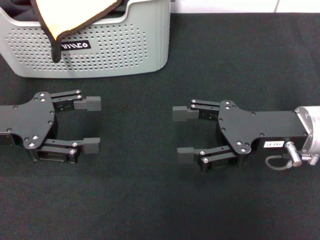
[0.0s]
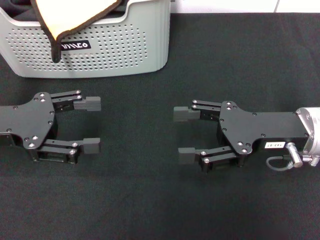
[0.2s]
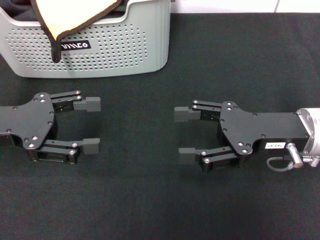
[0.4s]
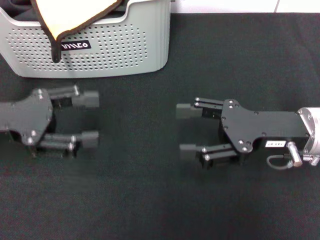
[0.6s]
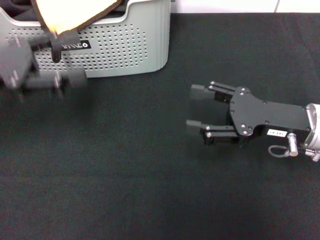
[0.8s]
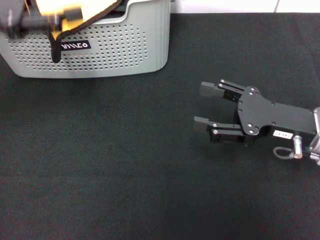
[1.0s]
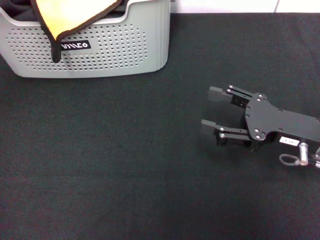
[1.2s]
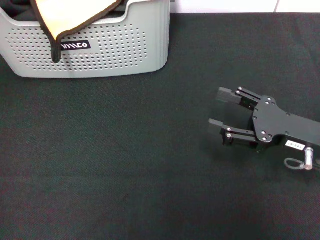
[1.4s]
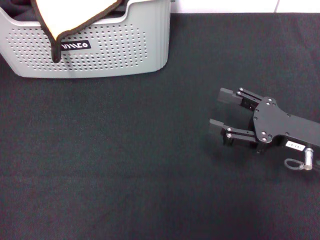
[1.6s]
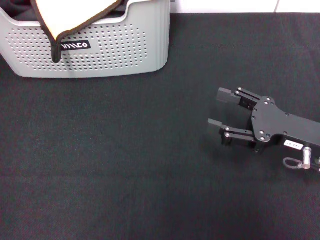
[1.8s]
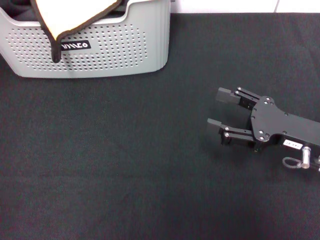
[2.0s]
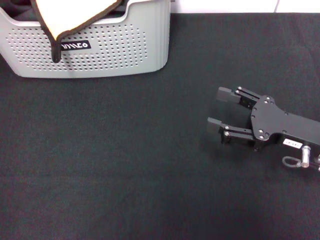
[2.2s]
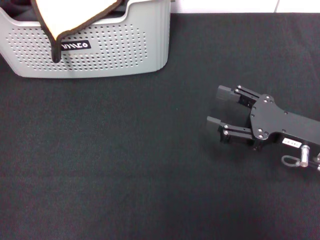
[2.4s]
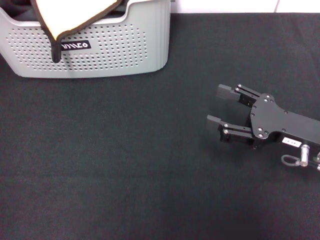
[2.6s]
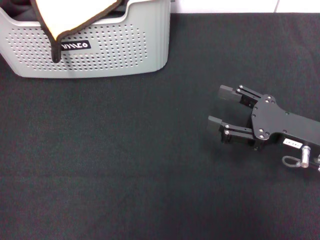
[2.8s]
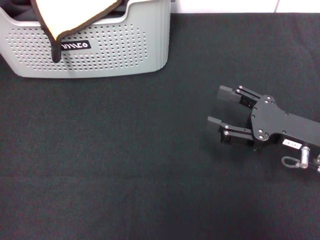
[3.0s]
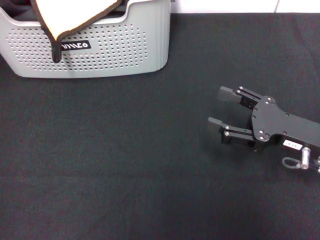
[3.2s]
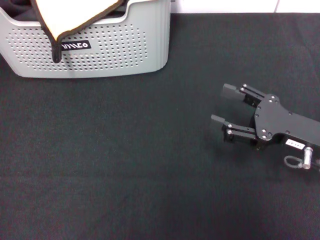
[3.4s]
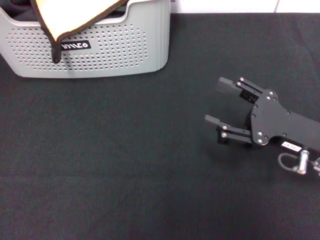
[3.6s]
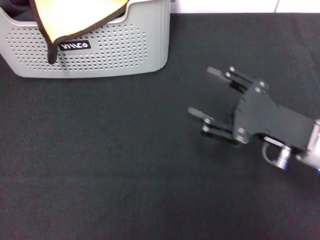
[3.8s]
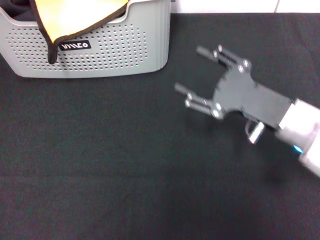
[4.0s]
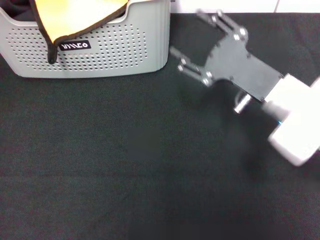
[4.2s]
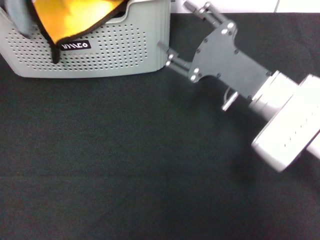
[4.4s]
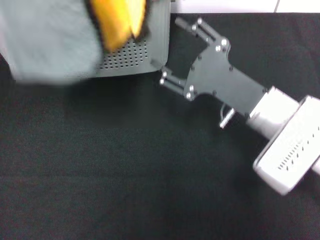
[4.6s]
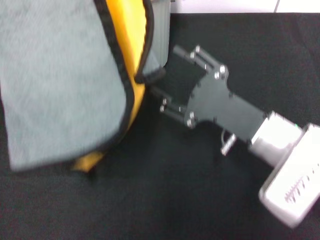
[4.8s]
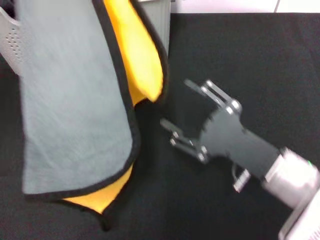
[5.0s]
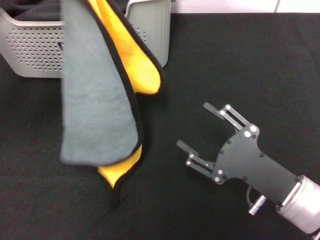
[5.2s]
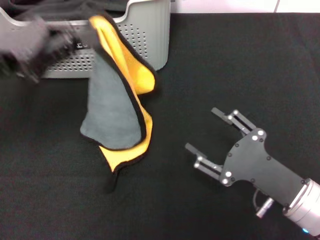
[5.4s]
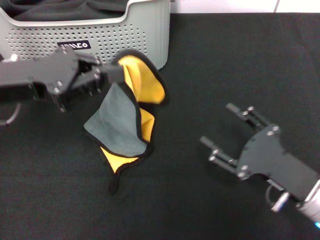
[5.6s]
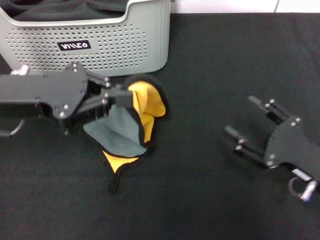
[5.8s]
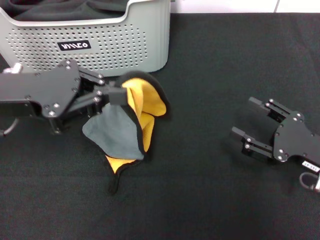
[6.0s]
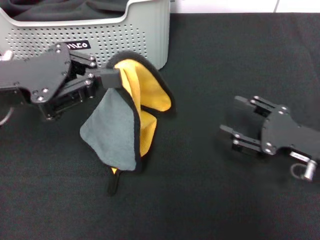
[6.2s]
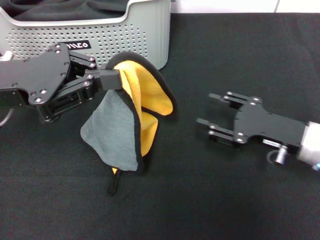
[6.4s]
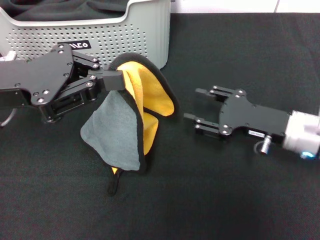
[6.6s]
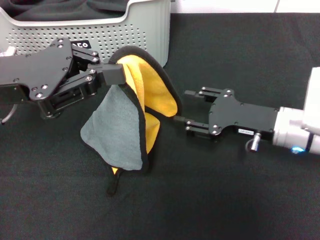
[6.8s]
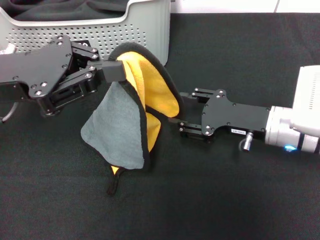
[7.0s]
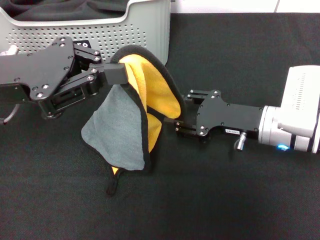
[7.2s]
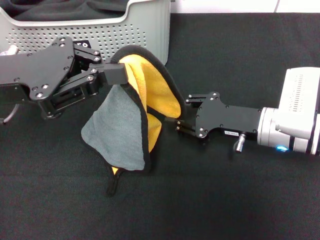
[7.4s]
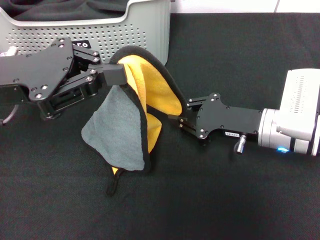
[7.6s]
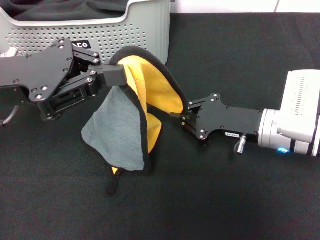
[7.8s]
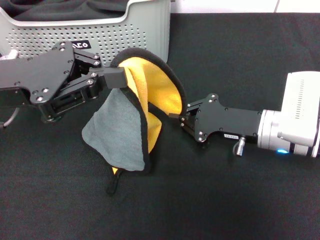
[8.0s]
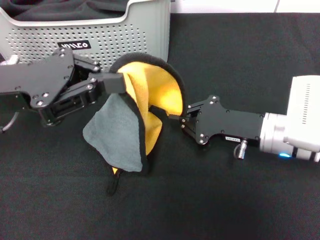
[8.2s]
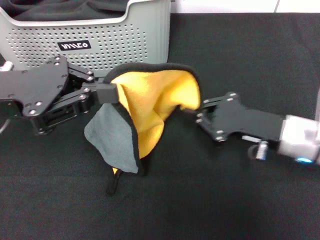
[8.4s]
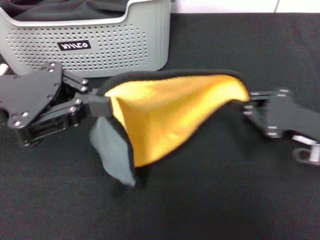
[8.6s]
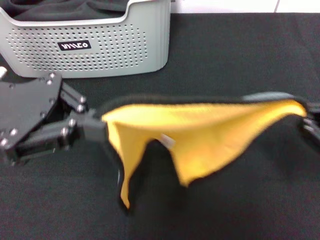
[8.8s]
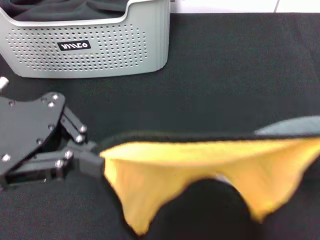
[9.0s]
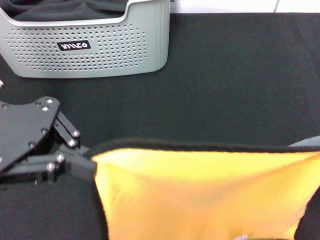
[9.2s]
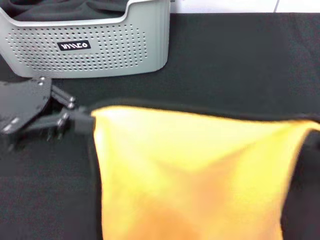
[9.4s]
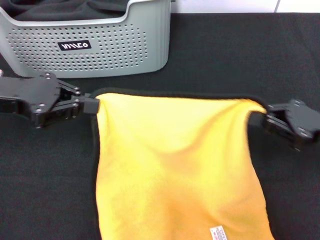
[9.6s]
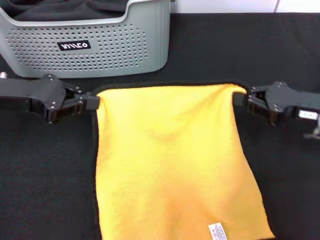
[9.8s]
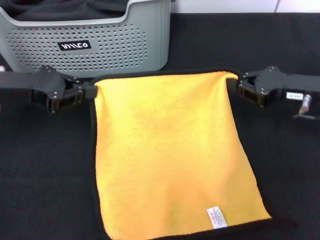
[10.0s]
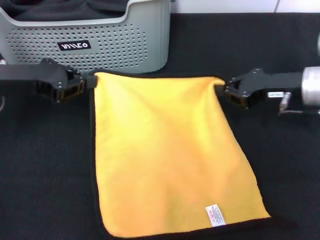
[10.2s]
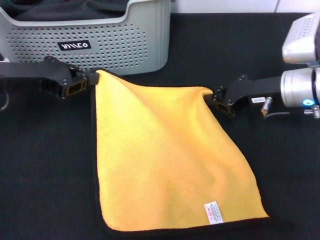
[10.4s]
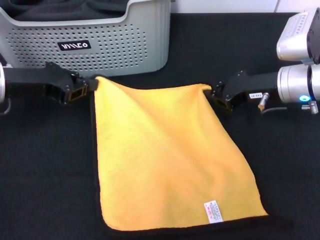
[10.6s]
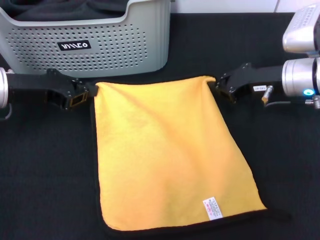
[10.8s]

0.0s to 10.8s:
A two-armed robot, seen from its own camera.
Task of the whole recording: pick up the towel from the storage box and lay it flat on the black tablecloth.
Step, 0.0s to 3.0s: Pick up a towel with the left gripper.
Step, 3.2s to 7.8s: Spread the towel flat with the left gripper.
0.0s to 1.6s: The right gripper ends up roughly 5 cm from where it was. The left gripper goes roughly 15 cm upward and forward.
3.0s to 4.6s: The left gripper shifts roughly 10 cm backward and upward. The right gripper is displaced to the left by about 10 cm.
4.6s to 6.2s: The right gripper goes approximately 10 cm to the right. Meanwhile the left gripper shifts approximately 15 cm downward.
6.2s to 7.8s: The right gripper moves to the left and forward, approximately 10 cm, and closes up.
7.8s to 9.2s: The right gripper is displaced to the right and backward by about 20 cm.
9.2s to 10.8s: The left gripper goes approximately 15 cm downward and forward; the right gripper is displaced forward and to the left by approximately 25 cm.

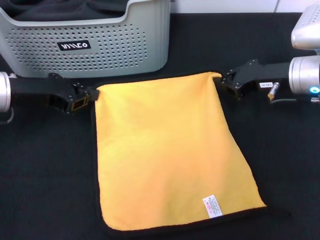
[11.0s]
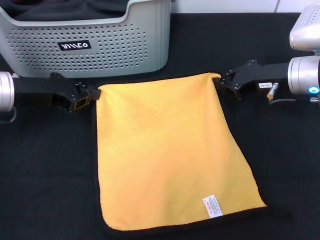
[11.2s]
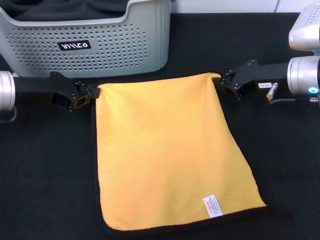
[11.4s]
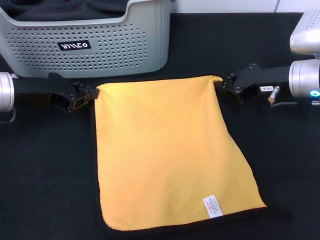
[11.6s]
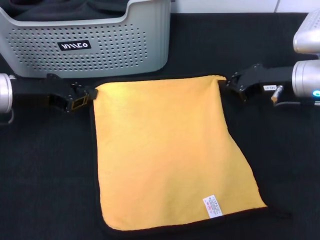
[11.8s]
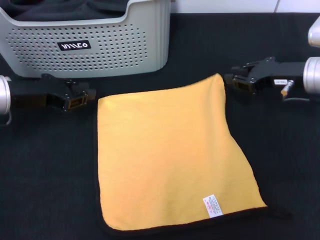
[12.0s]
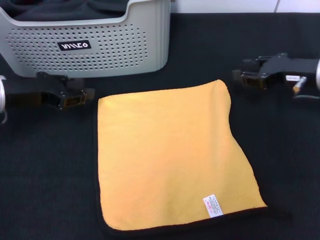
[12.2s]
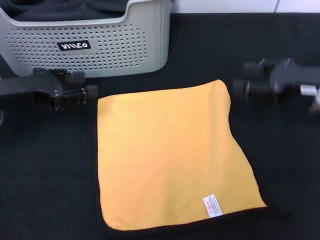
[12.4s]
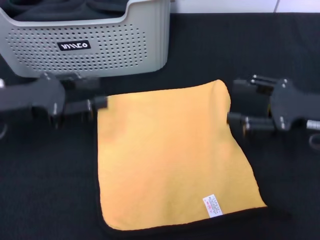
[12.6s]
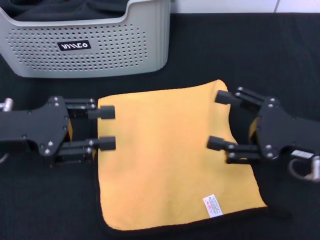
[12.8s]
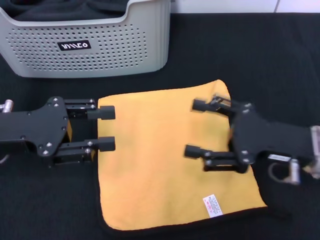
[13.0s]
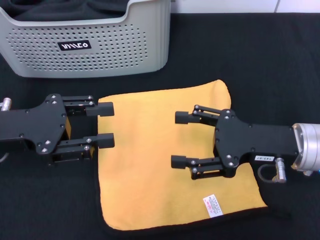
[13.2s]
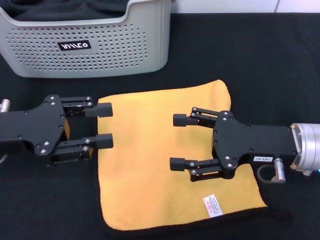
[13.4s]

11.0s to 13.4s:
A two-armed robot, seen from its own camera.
Task of the whole recording: pick up the towel from the storage box and lay it flat on the black tablecloth.
11.0s to 12.2s: There are only small adjustments of the grippers.
12.2s to 13.4s: The right gripper is displaced backward and to the left by roughly 15 cm, and opens its fingers; the left gripper heads backward, covering approximately 10 cm, and opens its fingers.
